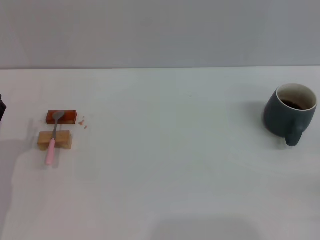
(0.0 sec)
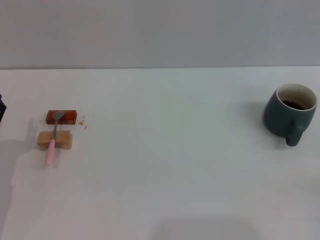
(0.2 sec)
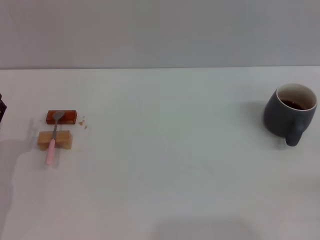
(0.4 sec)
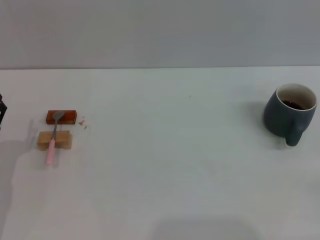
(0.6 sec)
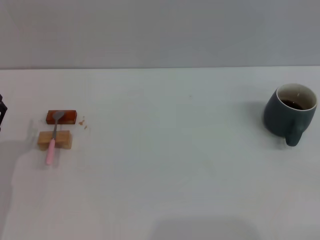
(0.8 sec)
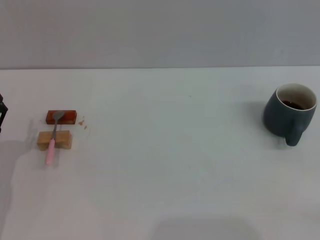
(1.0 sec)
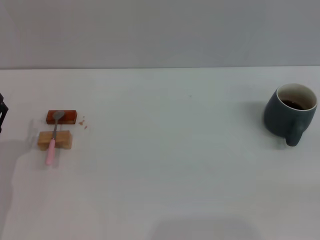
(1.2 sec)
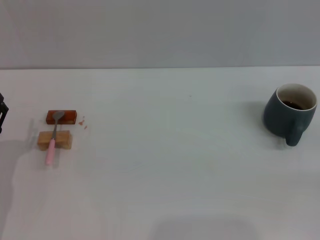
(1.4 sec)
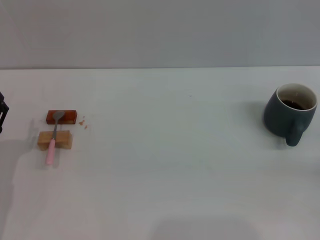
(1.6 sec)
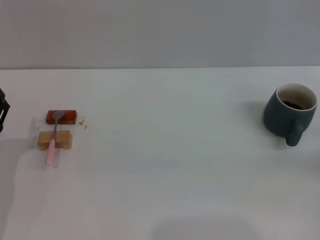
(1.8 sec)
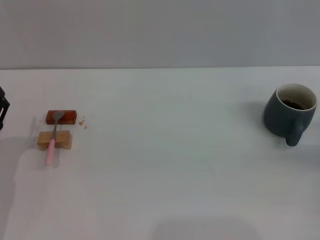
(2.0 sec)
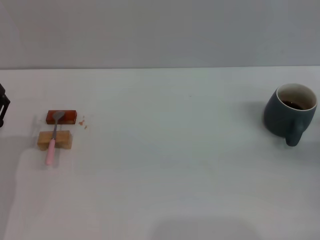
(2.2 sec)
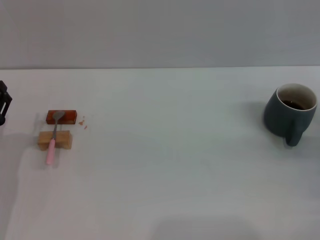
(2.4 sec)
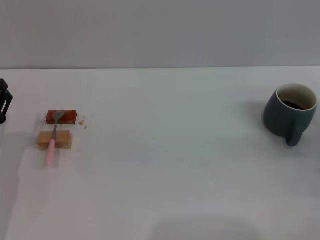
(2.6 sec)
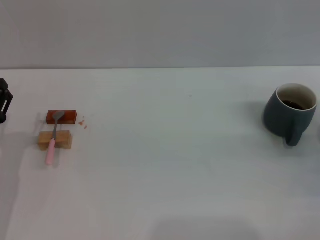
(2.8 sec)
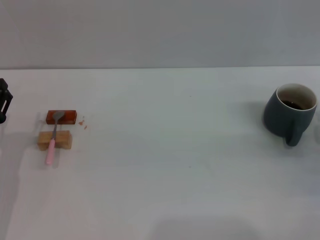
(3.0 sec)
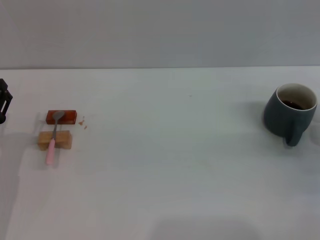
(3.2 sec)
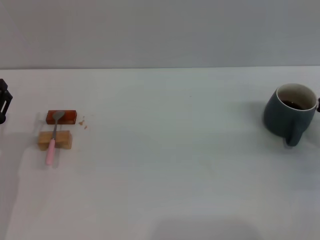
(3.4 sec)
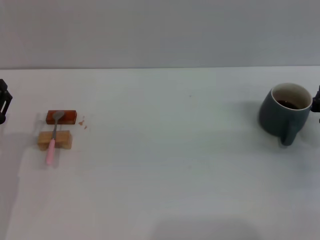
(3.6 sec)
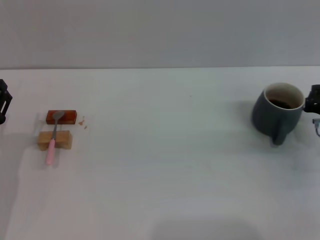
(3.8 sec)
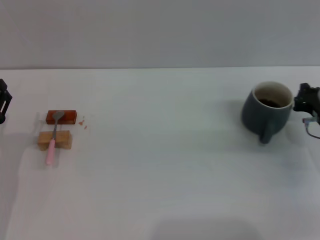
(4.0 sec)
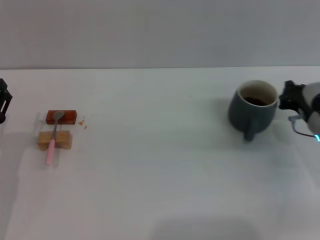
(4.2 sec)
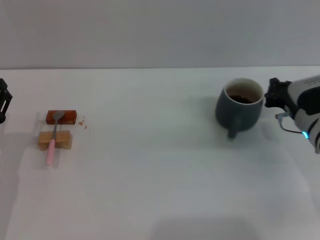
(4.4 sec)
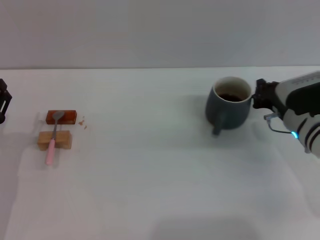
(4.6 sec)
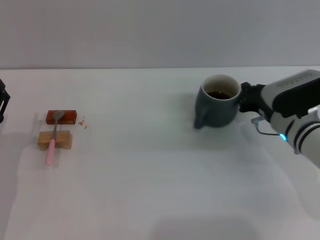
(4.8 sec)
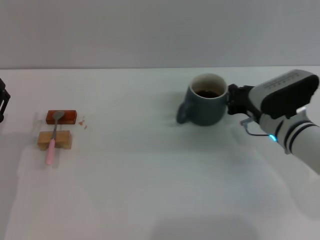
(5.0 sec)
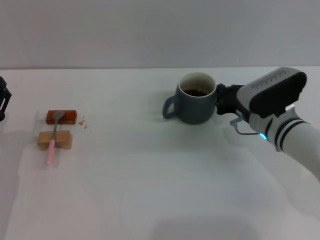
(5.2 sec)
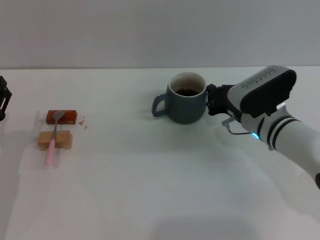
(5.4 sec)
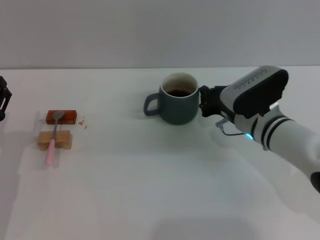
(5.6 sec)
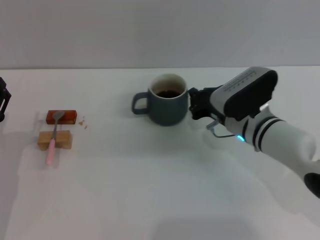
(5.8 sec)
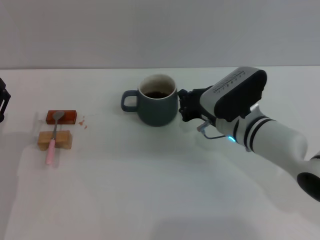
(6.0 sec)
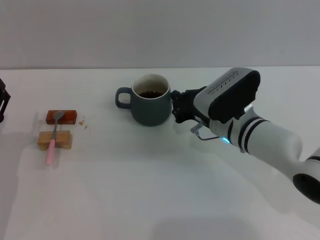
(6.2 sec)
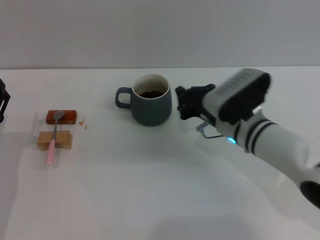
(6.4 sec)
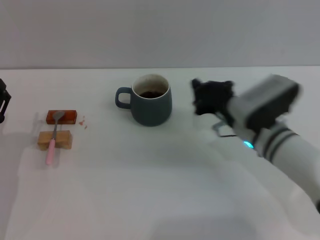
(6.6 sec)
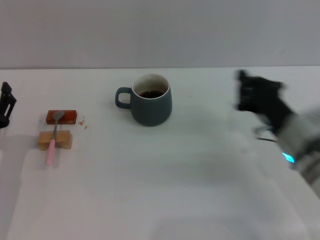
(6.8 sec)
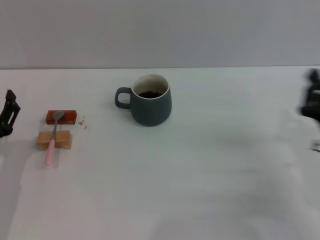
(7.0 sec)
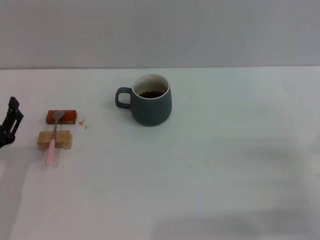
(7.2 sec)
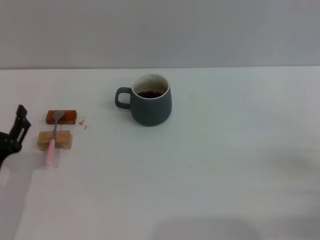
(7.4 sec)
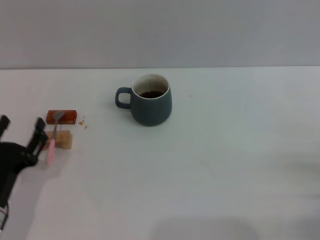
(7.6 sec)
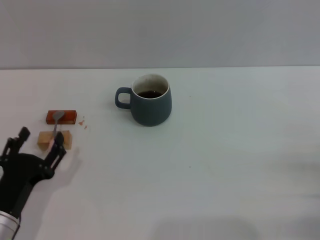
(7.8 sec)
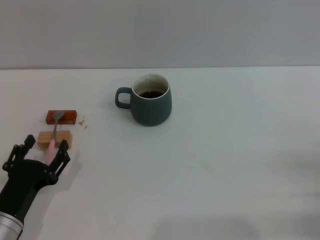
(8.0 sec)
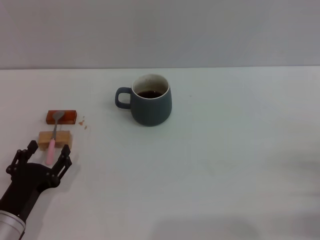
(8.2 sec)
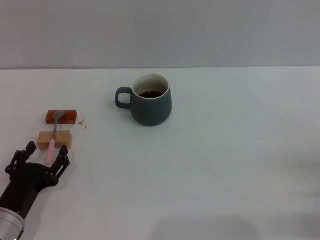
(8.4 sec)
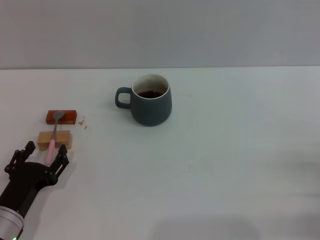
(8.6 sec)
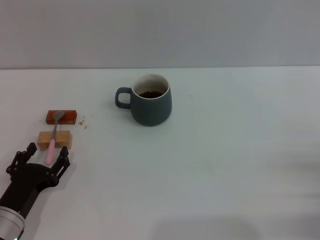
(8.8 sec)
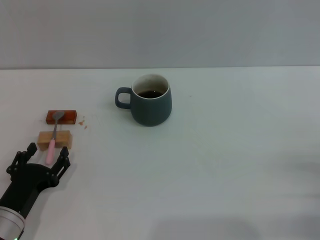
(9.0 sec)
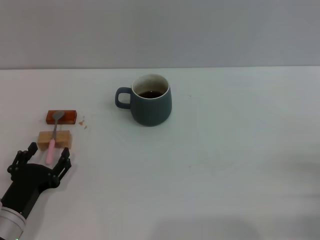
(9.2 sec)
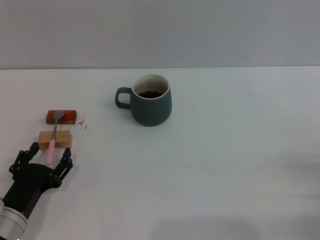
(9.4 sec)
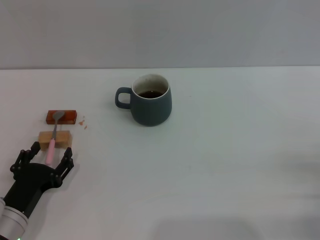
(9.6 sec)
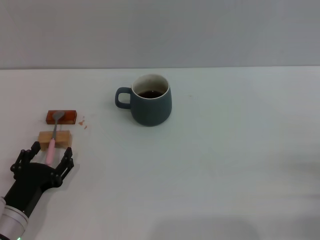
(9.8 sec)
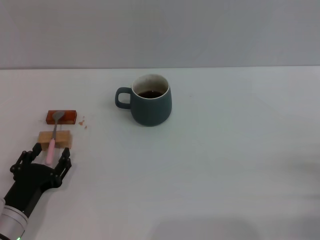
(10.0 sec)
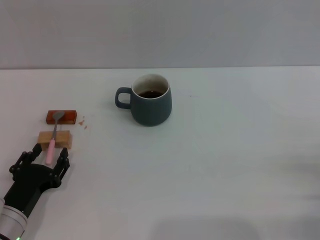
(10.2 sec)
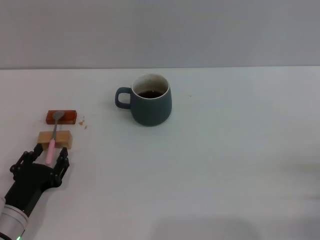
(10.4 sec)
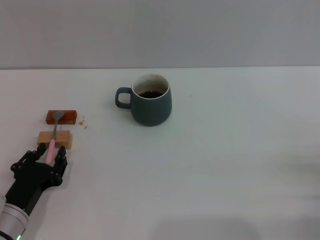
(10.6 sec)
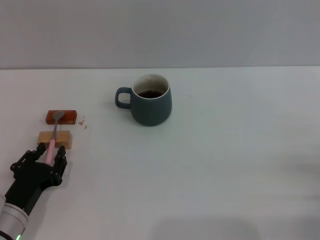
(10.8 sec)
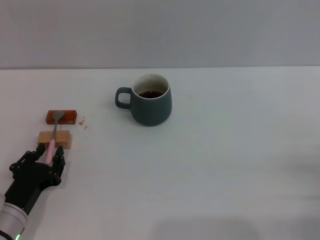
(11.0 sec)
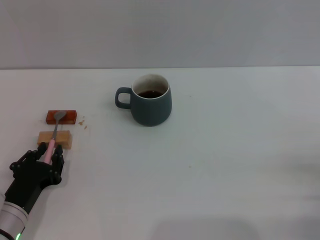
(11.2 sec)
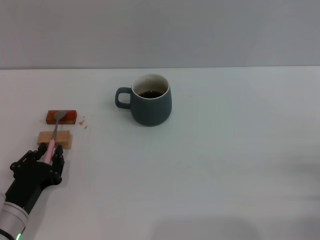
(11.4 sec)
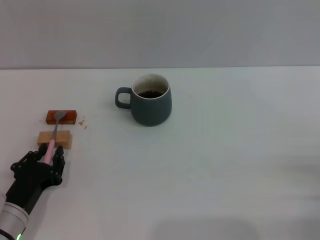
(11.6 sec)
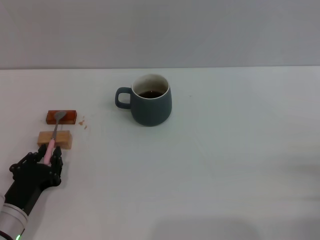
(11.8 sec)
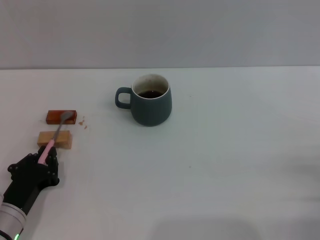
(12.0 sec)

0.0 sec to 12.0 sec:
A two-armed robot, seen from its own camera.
Task of the whole recording: Move the grey cup to the center, lift the pink spoon, stir it three times in the cup, and put the spoon into the cup.
Step, 0.0 sec to 6.4 sec: Move the cup with coffee to the center of view with the right gripper.
1.6 sec to 3.0 sec: The right gripper travels to the left and forward by roughly 10 cm.
3.0 sec to 4.4 sec: The right gripper shifts approximately 10 cm to the left.
4.4 sec to 6.0 sec: The right gripper heads to the left, covering approximately 10 cm.
6.0 sec to 7.6 sec: The left gripper shifts roughly 5 cm backward, while the right gripper heads to the right and backward, covering roughly 25 cm.
7.6 sec to 9.0 sec: There are only small adjustments of the grippers.
9.0 sec to 10.4 sec: The two grippers keep their place.
10.4 sec to 12.0 sec: The left gripper closes its fingers.

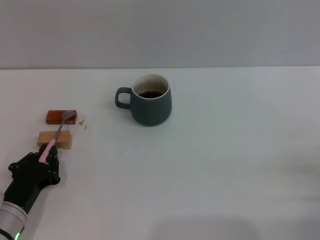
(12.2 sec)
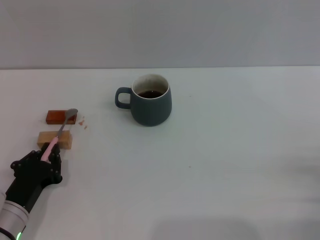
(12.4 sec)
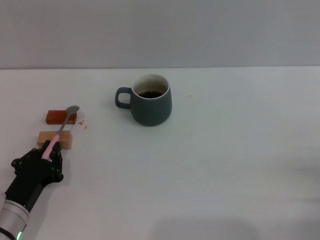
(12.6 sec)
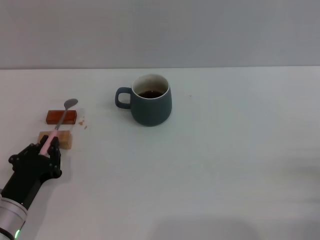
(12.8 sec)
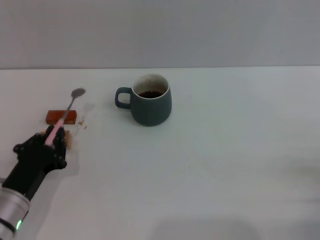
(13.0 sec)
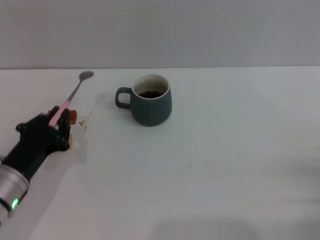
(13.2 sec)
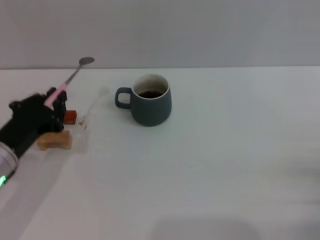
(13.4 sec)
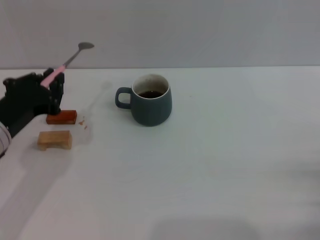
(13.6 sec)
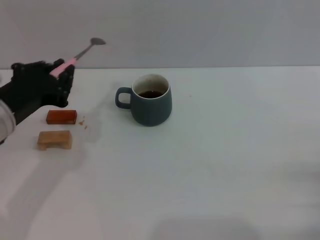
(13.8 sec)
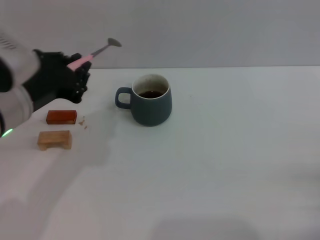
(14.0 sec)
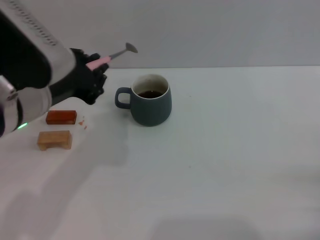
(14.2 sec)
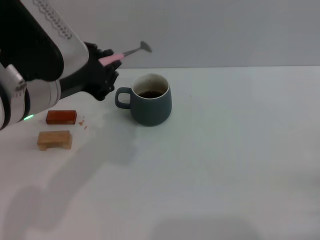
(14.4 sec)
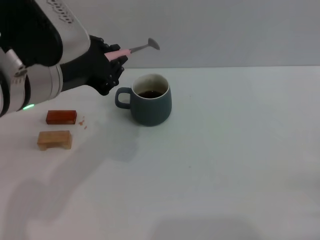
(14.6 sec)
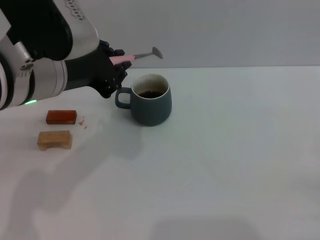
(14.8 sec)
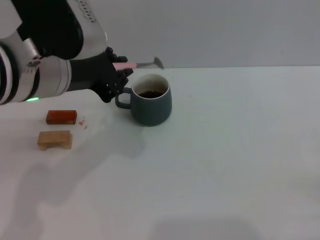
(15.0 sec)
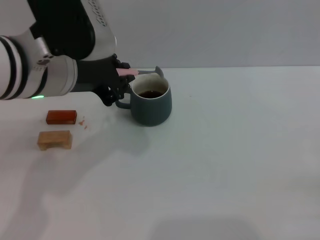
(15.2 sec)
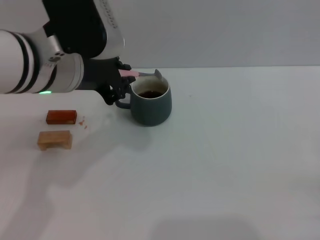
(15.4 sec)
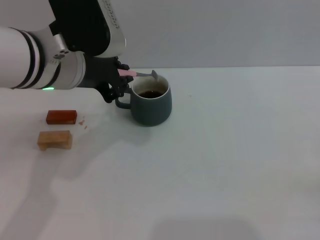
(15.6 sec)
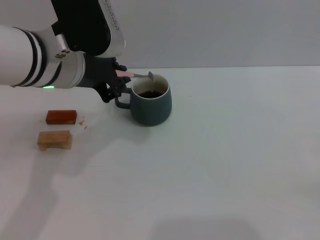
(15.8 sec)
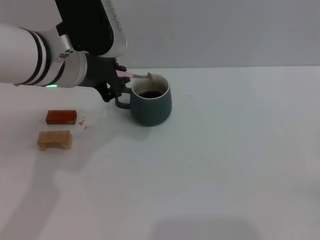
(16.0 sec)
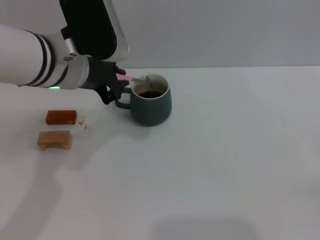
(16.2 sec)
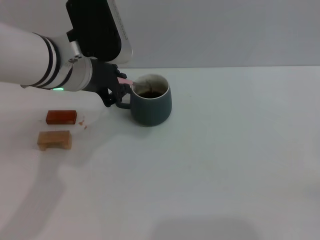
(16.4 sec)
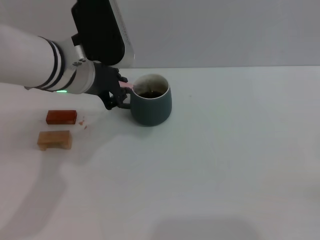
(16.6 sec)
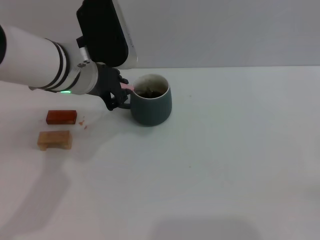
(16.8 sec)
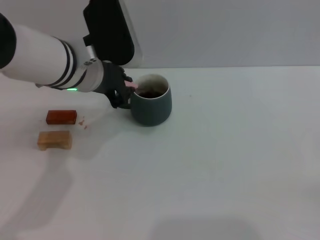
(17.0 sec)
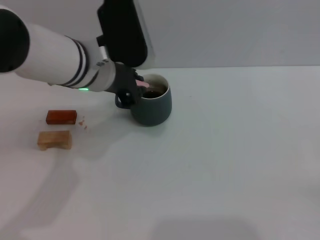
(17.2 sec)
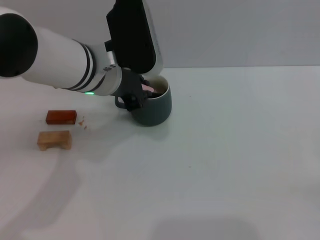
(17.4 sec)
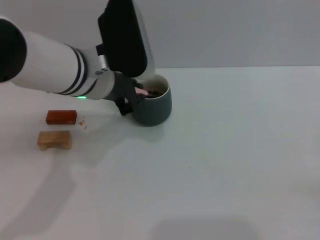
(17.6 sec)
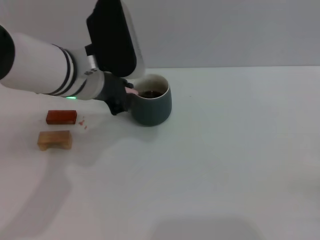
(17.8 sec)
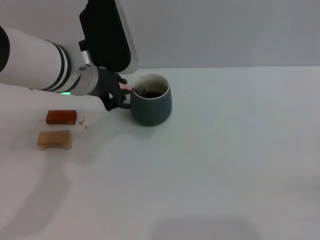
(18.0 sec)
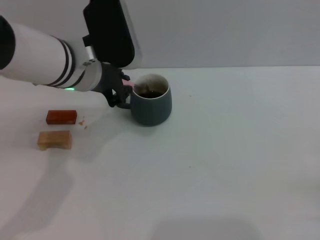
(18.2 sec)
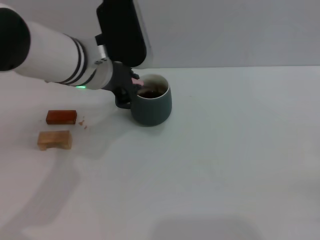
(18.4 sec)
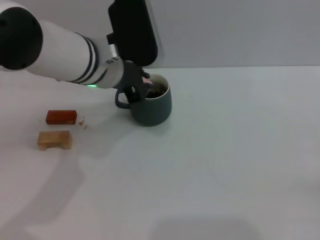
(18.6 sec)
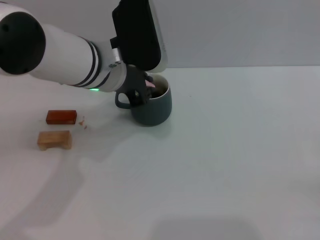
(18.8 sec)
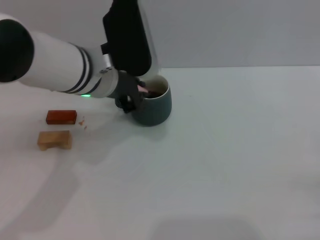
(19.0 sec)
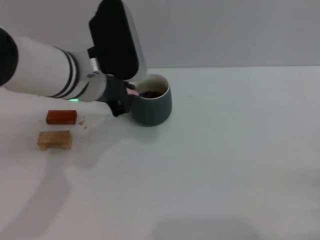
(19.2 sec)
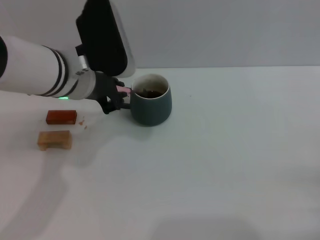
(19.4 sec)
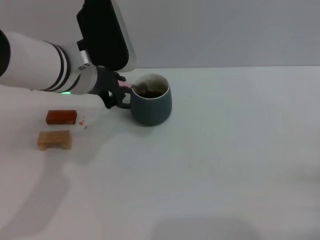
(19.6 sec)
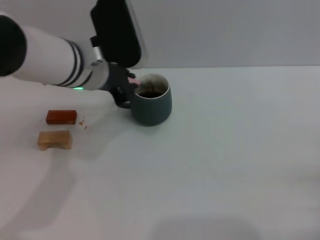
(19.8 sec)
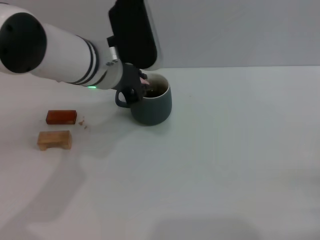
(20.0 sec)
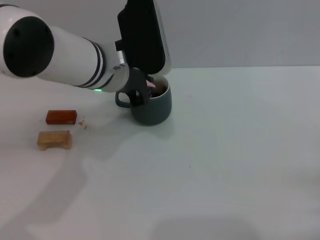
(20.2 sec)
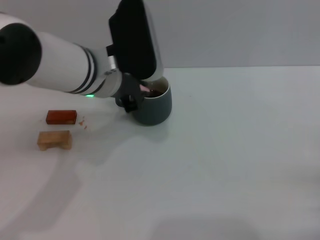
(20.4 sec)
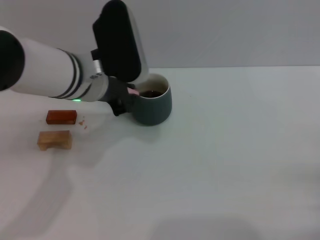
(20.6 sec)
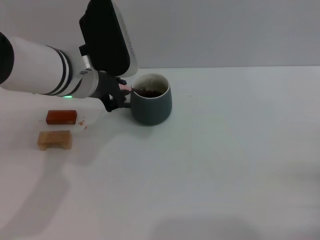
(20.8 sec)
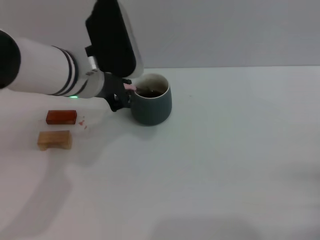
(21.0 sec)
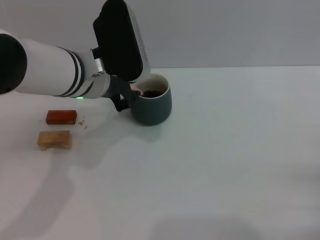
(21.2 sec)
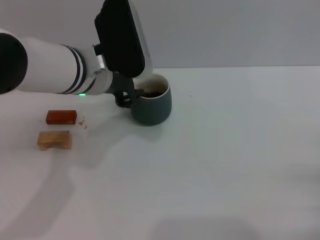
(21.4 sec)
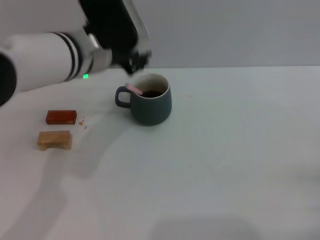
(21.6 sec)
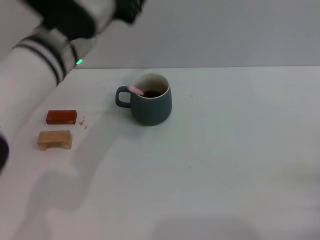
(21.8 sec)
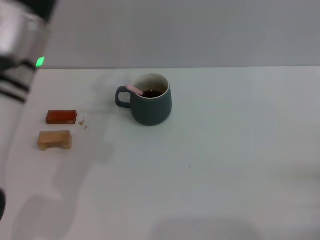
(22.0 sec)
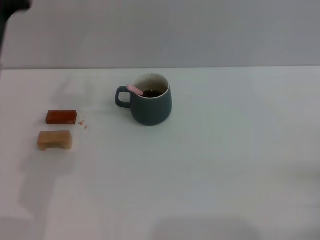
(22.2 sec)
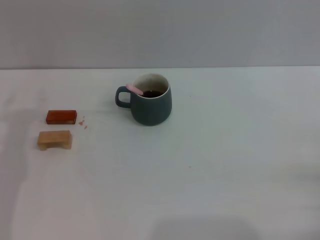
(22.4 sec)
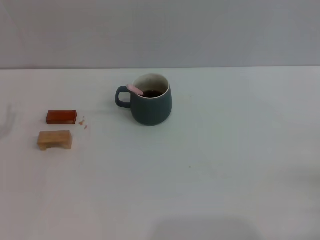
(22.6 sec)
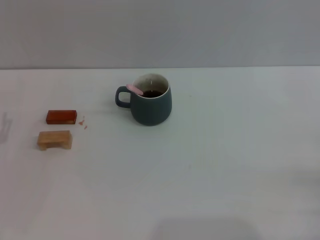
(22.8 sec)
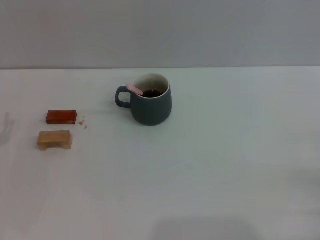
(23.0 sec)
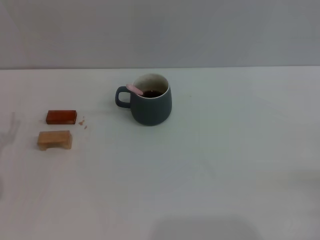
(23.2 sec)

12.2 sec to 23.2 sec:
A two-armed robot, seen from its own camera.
Task of the whole recording: Move the grey cup to the center, lift the pink spoon, stir it three times in the cup, and put the spoon into the cup.
Step, 13.6 sec to 21.4 sec: Stir the coffee in the cup with the left gripper.
12.2 sec to 13.8 sec: The left gripper shifts roughly 20 cm upward.
13.8 sec to 15.4 sec: The left gripper goes some 10 cm to the right, upward and forward.
15.4 sec to 17.0 sec: The left gripper moves forward, some 5 cm.
17.0 sec to 20.0 sec: There are only small adjustments of the grippers.
20.0 sec to 21.6 sec: The left gripper opens its fingers.
21.6 sec to 23.2 sec: The left gripper heads to the left, downward and backward, covering approximately 30 cm, and opens.
